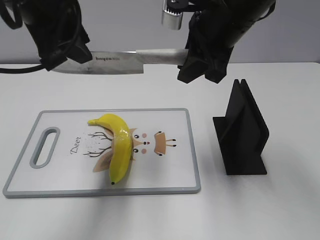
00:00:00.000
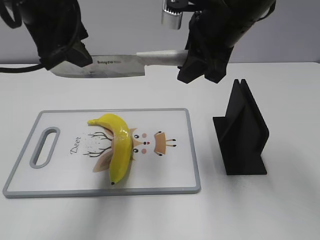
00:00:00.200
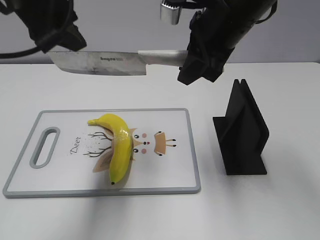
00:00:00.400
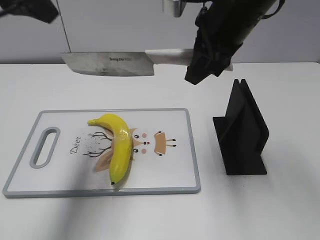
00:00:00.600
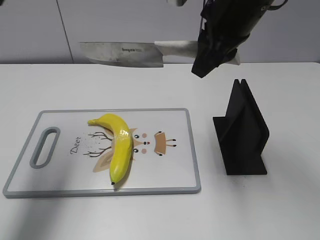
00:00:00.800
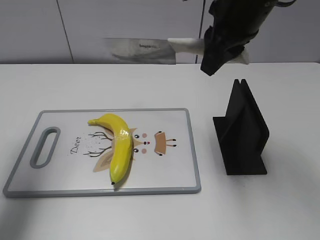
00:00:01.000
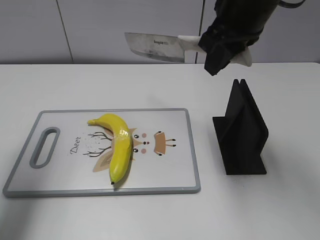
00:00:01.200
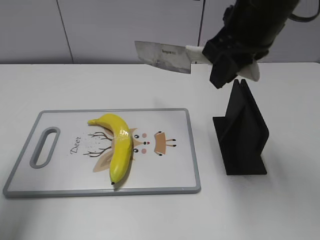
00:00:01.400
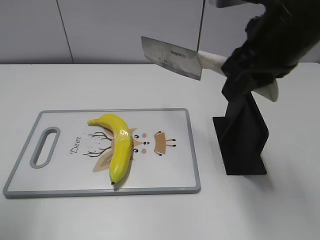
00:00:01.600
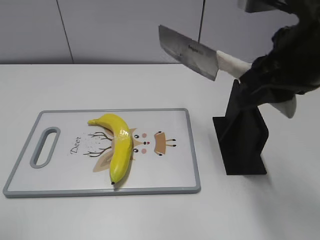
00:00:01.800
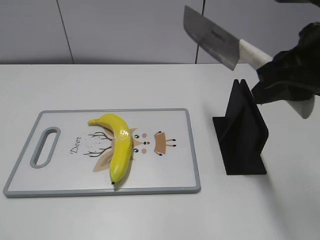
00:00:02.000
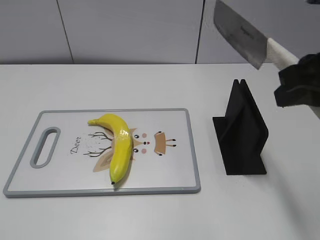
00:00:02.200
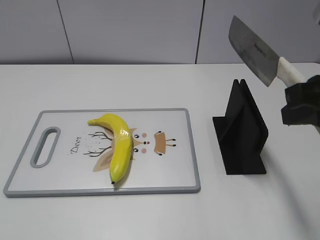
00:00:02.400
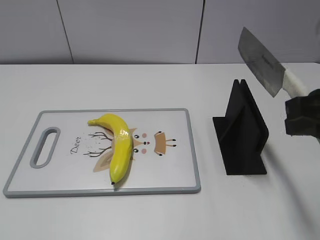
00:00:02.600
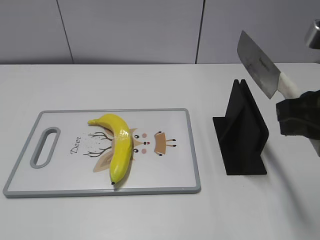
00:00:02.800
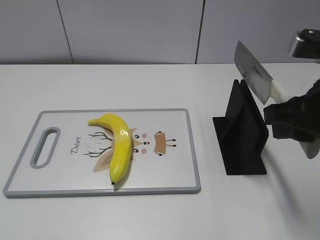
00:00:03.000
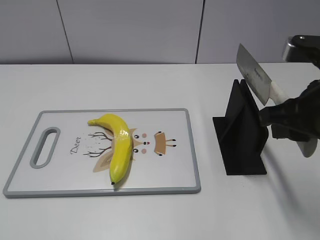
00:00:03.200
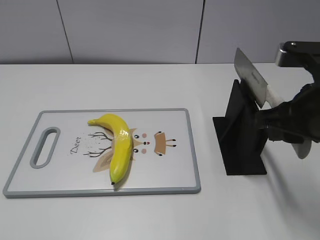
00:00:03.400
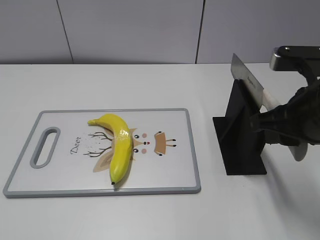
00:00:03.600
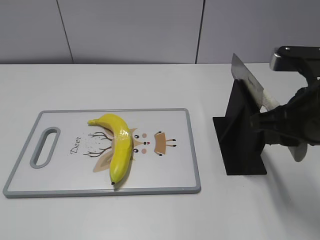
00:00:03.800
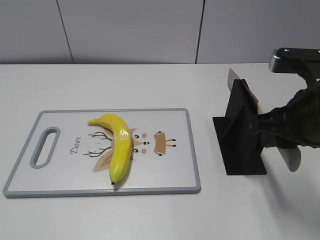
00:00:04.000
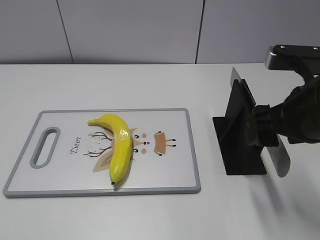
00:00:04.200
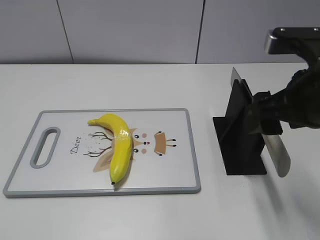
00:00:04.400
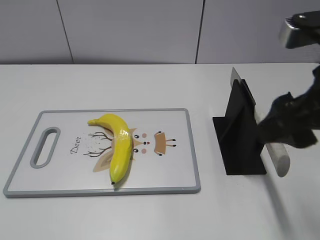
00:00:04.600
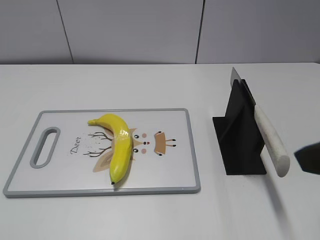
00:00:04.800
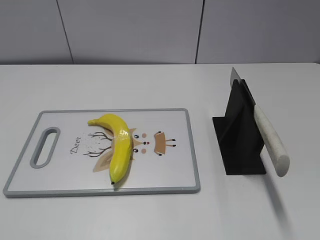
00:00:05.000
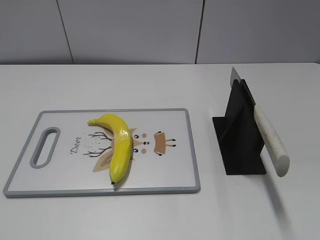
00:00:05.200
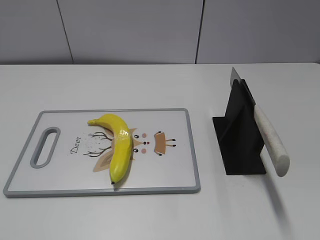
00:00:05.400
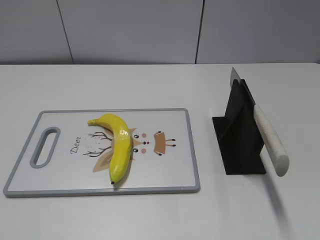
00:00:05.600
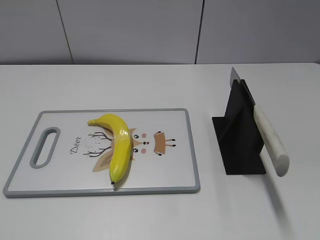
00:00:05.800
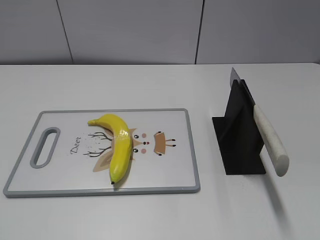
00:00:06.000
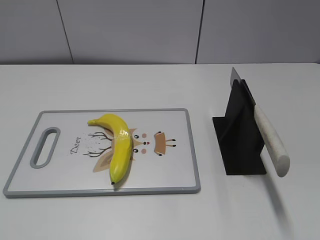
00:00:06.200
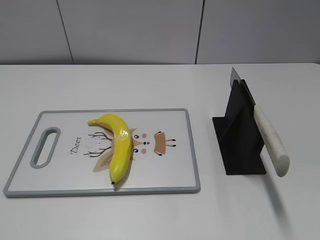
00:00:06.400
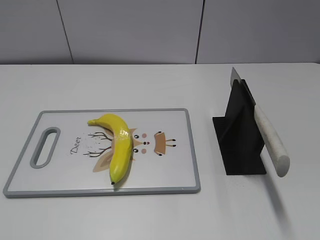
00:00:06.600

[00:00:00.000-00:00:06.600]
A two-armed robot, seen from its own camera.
Task of the whole recording: cut plastic banana.
Step, 00:00:00.000 to 00:00:01.000: Cut the banana with your left hand.
Step, 00:00:01.200 to 00:00:02.600: Secure the blade with your left hand.
Step, 00:00:03.000 to 00:00:06.600: Place the knife on the storage rack with your right hand.
00:00:00.000 to 00:00:01.600: The right gripper heads backward, covering approximately 5 cm. Meanwhile the left gripper heads to the left and backward, covering about 20 cm, and opens its fingers.
00:00:01.600 to 00:00:03.200: The right gripper is displaced downward, to the right and backward by about 10 cm; the left gripper travels backward by approximately 20 cm.
00:00:03.200 to 00:00:05.000: The right gripper goes some 15 cm backward and upward, and opens up.
